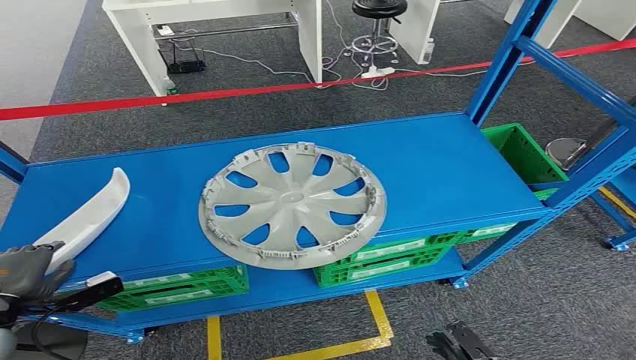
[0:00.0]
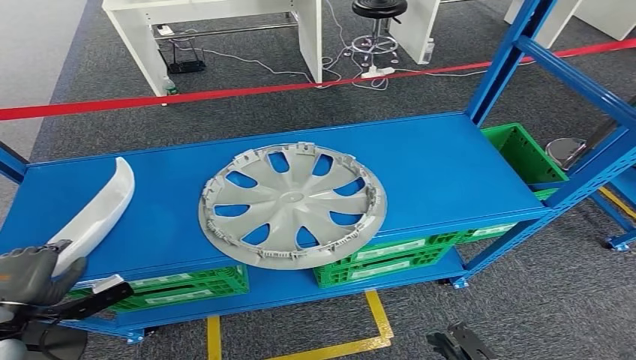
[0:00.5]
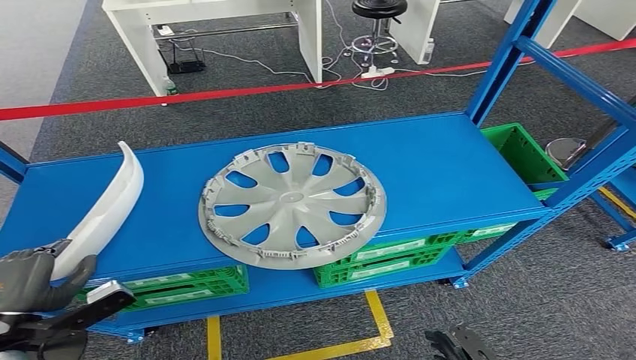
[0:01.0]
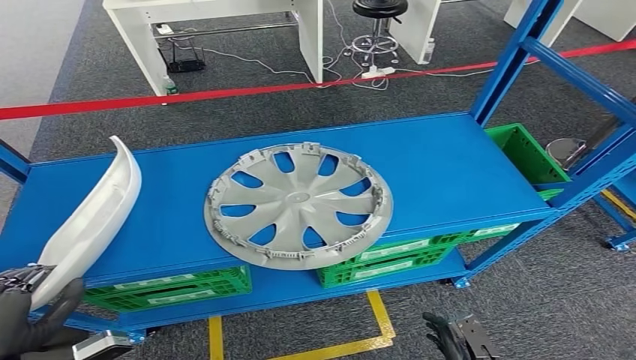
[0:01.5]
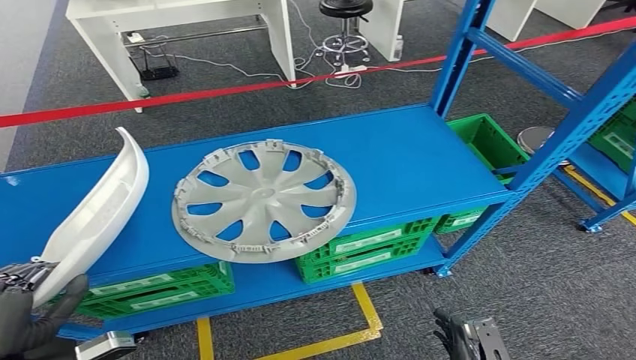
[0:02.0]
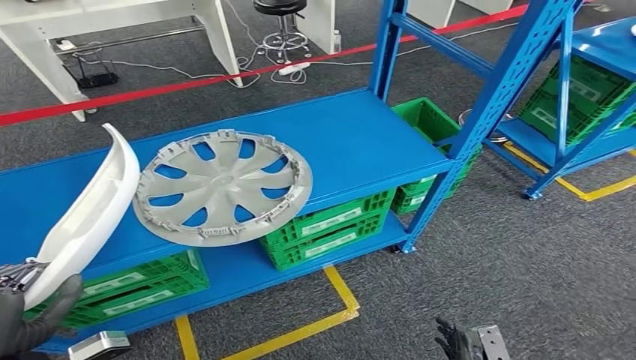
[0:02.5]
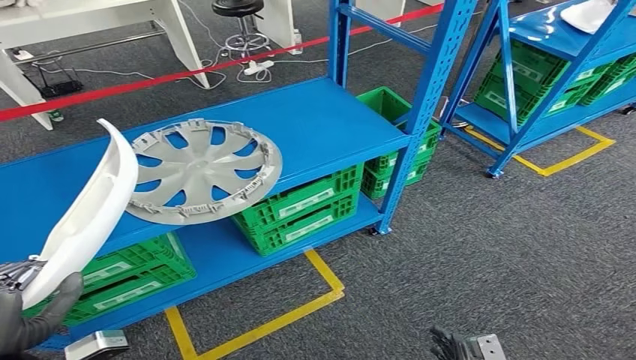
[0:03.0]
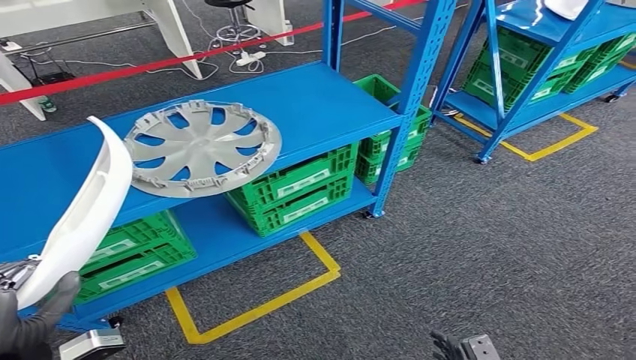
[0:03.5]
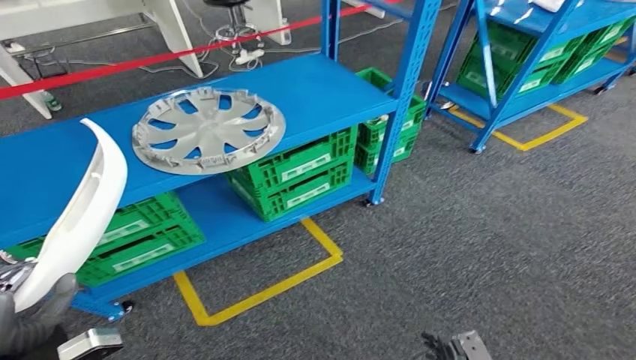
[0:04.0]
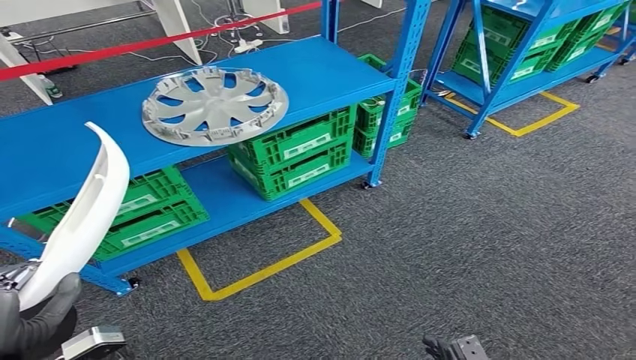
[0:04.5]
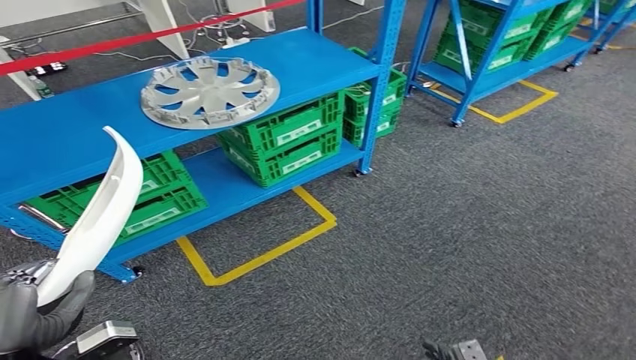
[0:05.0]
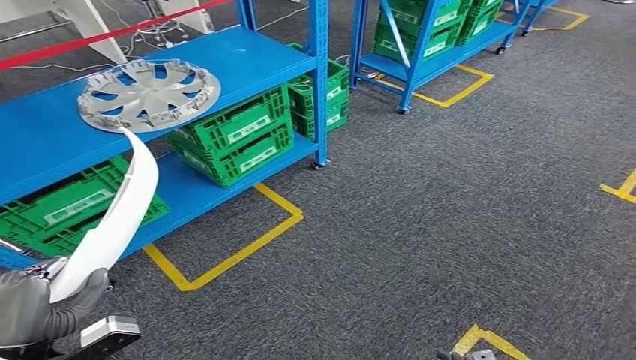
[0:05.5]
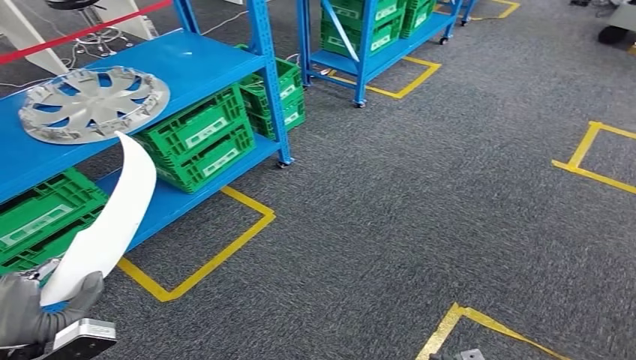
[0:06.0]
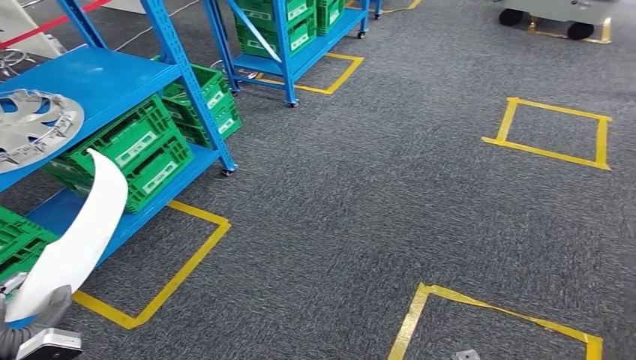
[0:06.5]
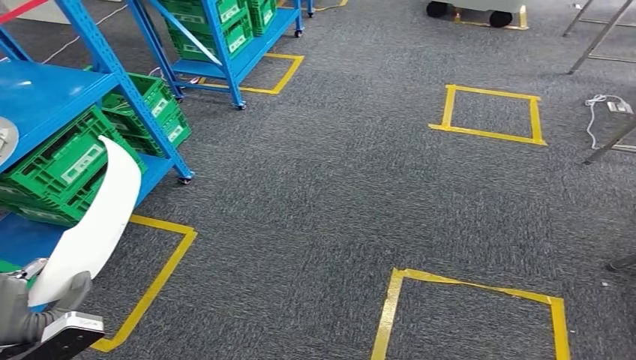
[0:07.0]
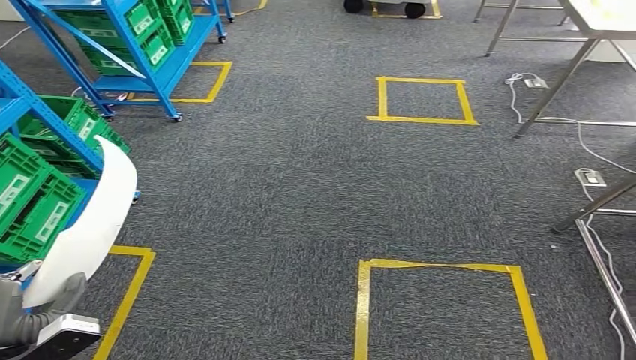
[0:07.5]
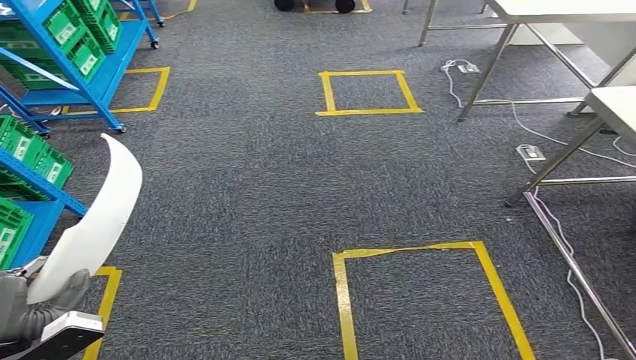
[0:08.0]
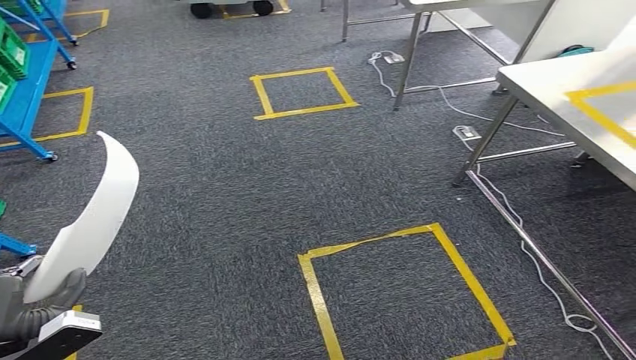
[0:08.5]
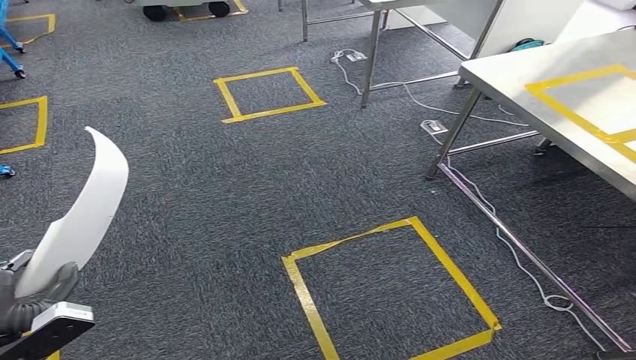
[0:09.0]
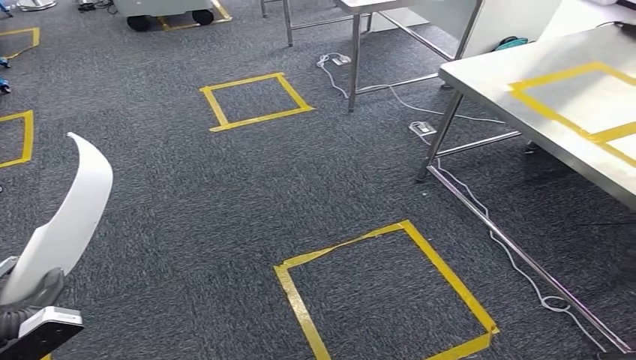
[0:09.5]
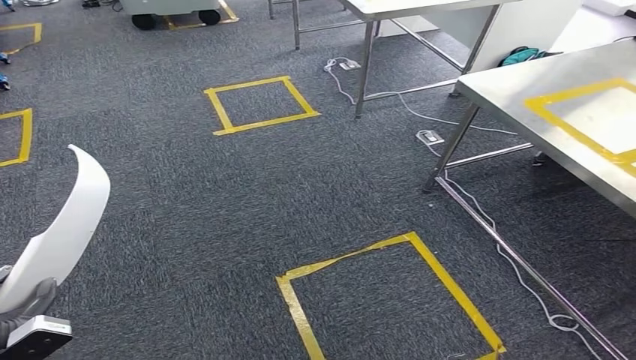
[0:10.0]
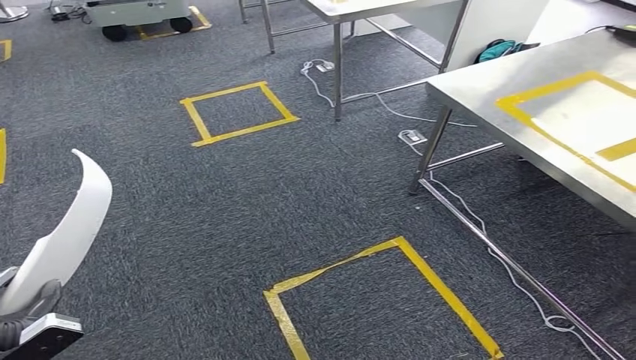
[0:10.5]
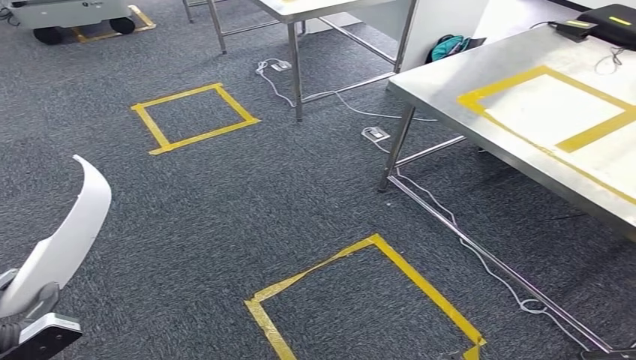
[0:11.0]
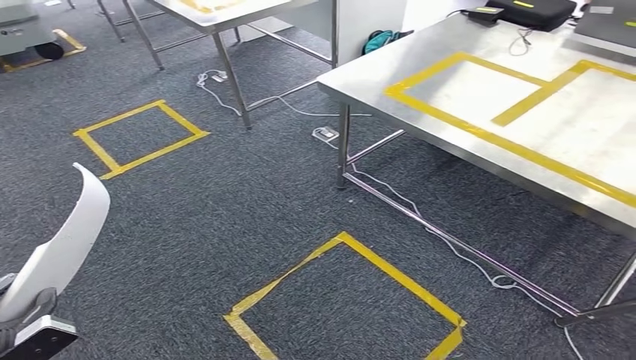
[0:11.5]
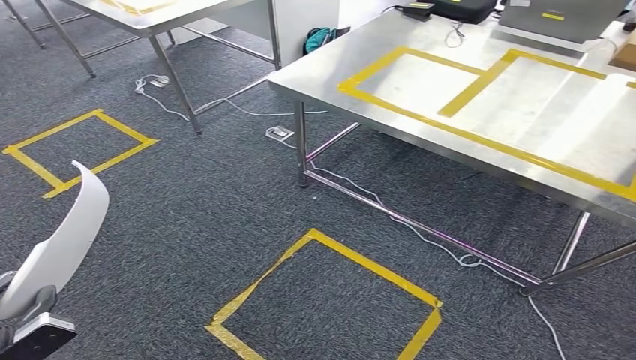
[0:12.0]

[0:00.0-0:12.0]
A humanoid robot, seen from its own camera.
Step, 0:00.0 to 0:02.0: Pick up the small parts from the shelf.

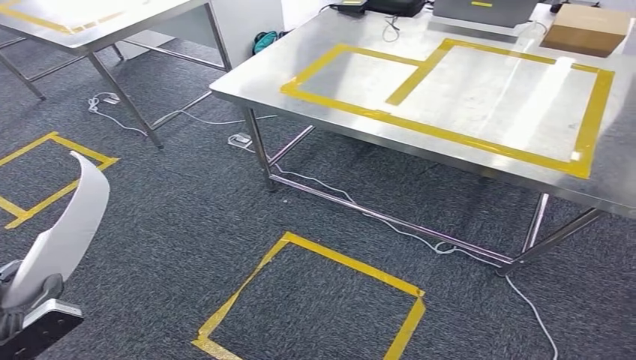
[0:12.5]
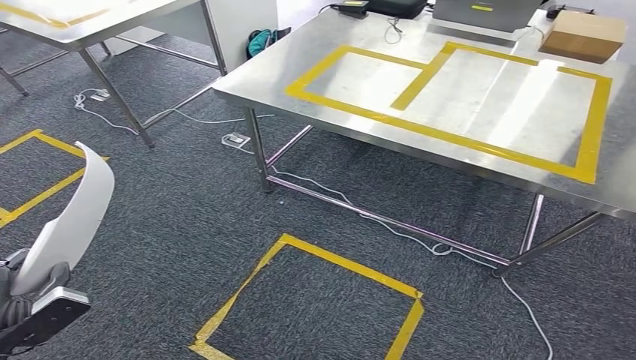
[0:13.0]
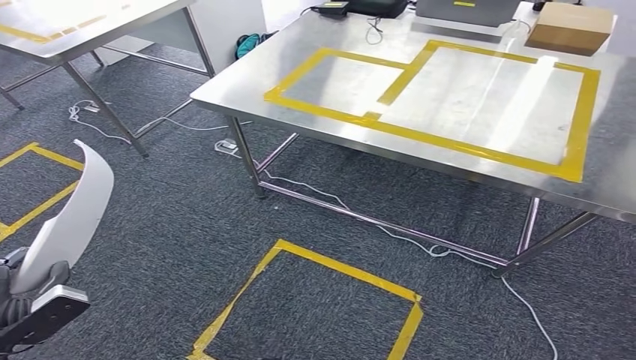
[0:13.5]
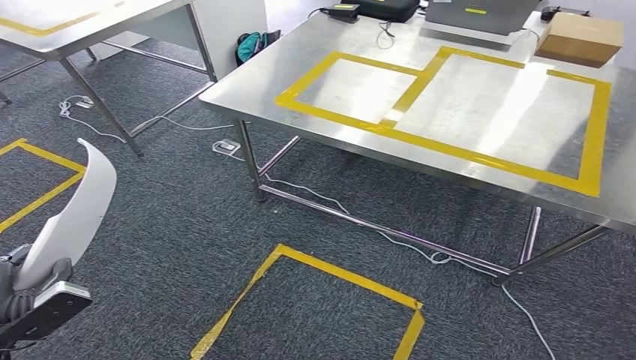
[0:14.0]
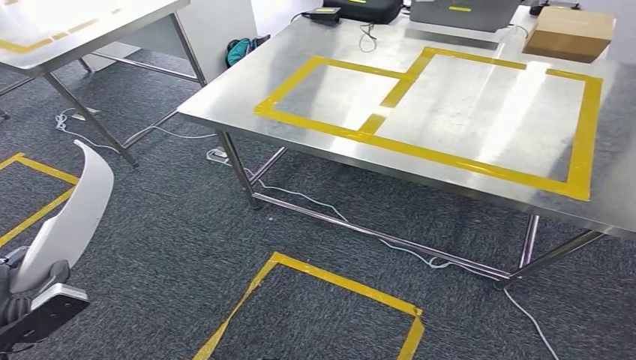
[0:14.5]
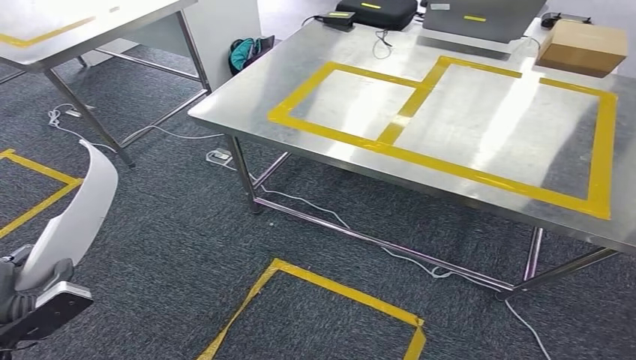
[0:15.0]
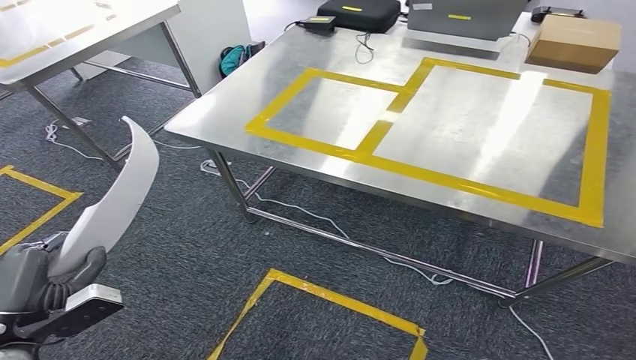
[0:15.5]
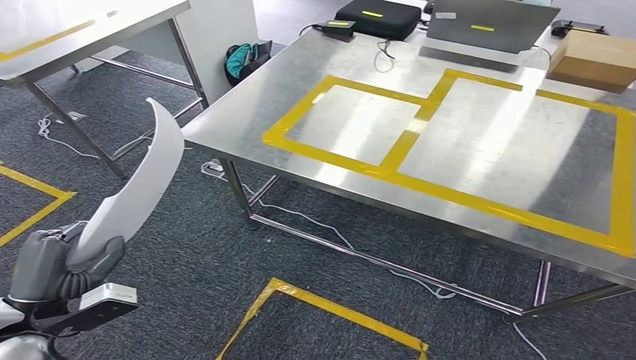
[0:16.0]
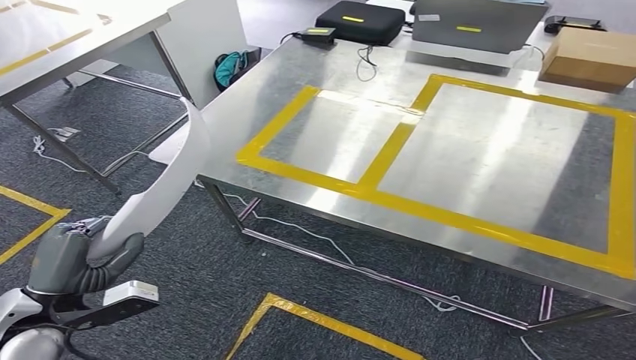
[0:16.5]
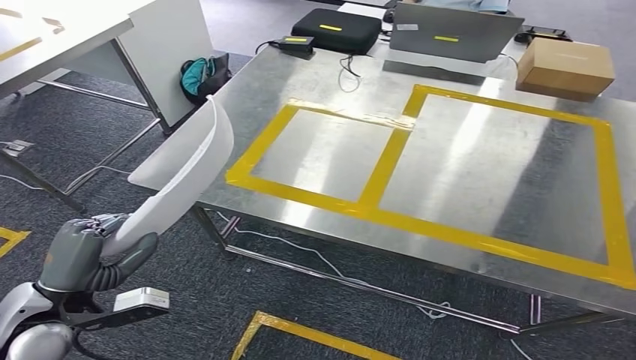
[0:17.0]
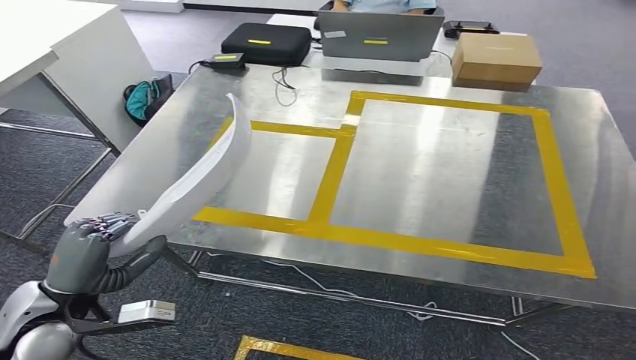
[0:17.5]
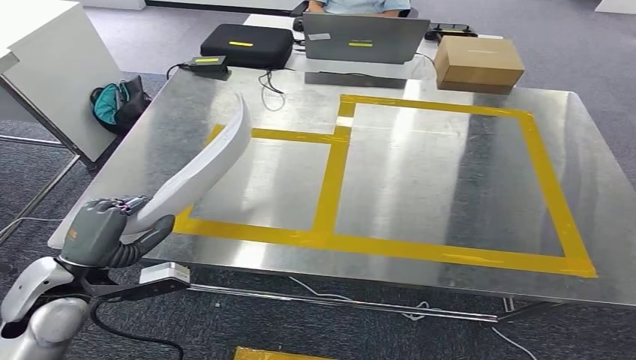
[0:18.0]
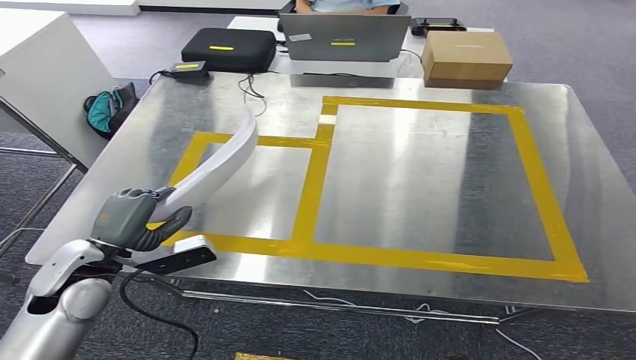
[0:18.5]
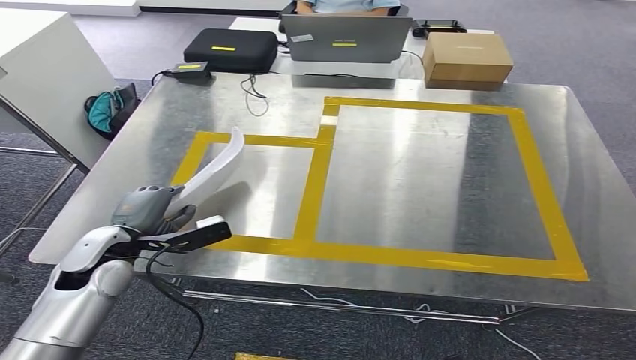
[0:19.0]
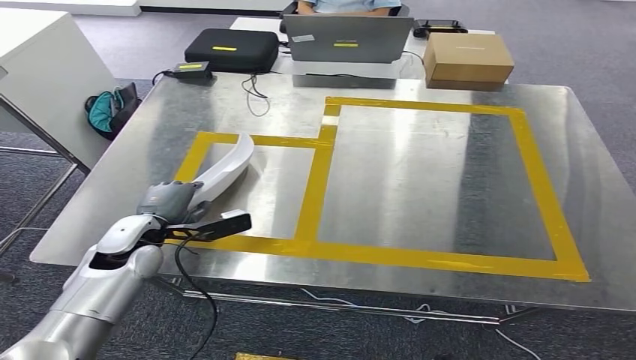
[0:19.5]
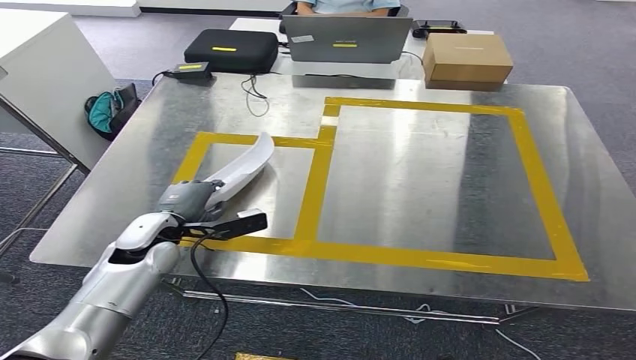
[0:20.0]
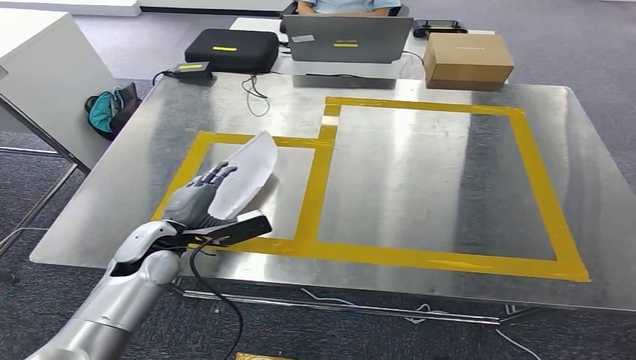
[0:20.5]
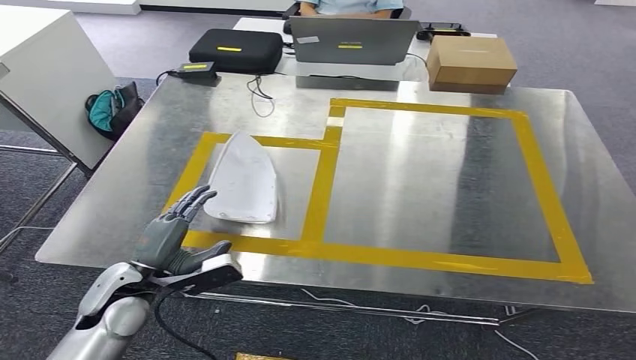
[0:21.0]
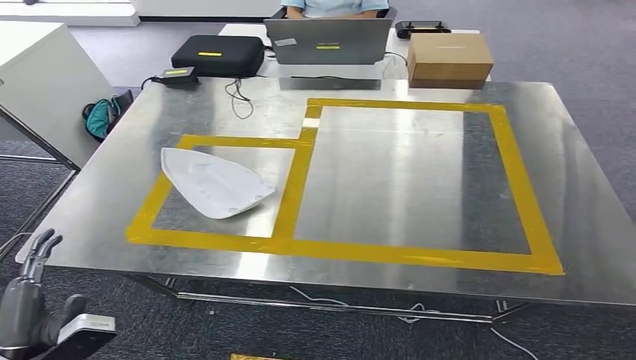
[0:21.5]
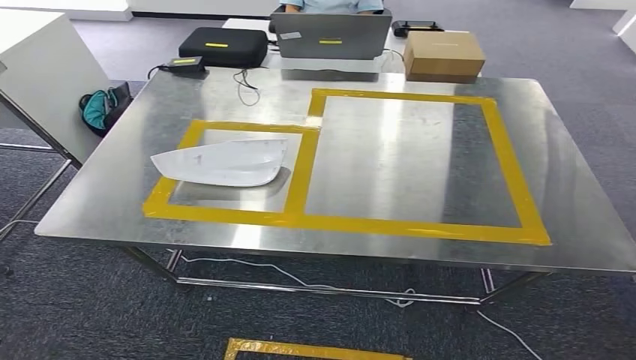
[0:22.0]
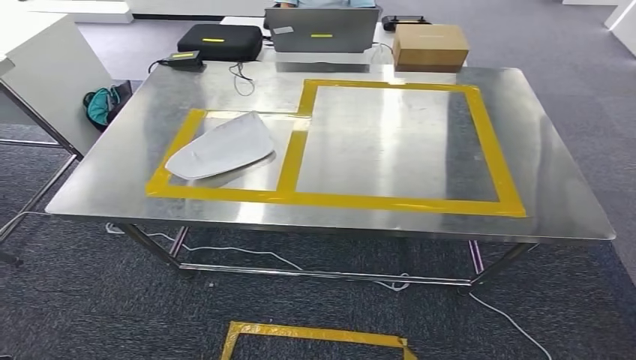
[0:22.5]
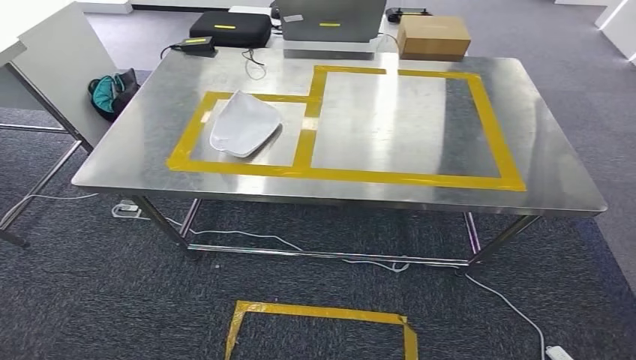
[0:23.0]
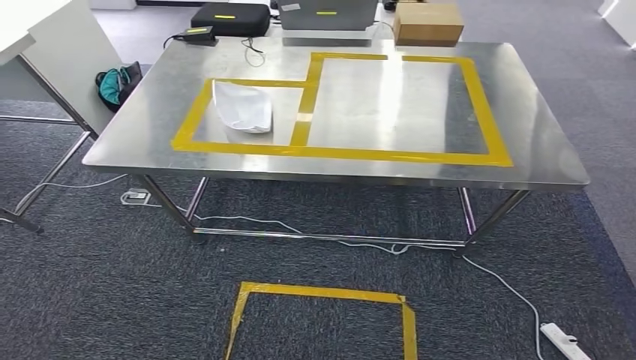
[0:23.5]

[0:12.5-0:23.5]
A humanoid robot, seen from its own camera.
Step, 0:12.5 to 0:17.0: Move the small parts to the workbench.
Step, 0:17.5 to 0:21.5: Insert the small parts into the corresponding holes on the workbench.
